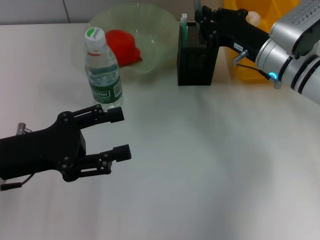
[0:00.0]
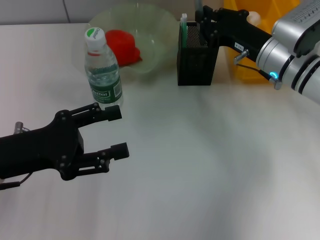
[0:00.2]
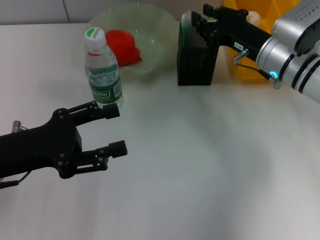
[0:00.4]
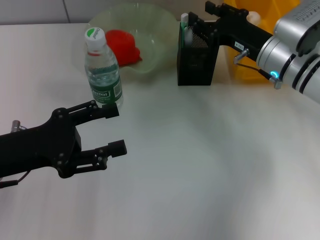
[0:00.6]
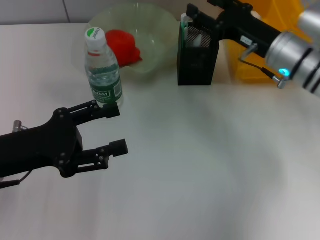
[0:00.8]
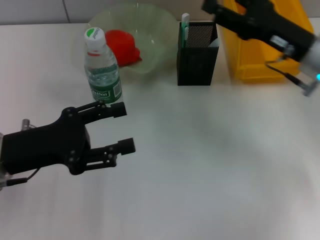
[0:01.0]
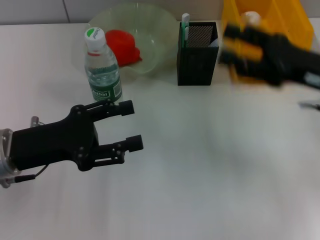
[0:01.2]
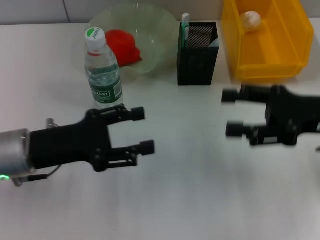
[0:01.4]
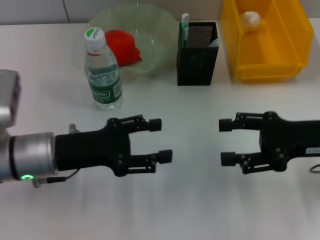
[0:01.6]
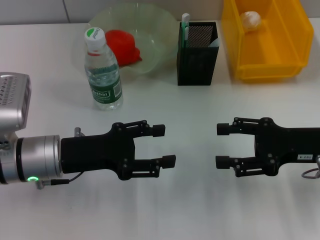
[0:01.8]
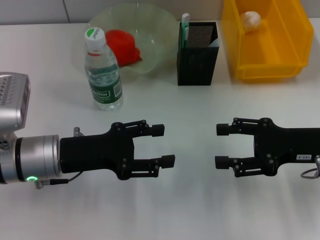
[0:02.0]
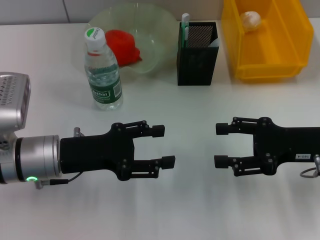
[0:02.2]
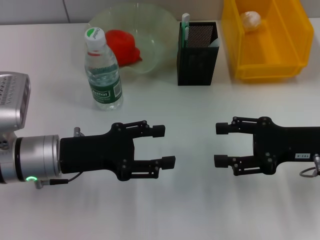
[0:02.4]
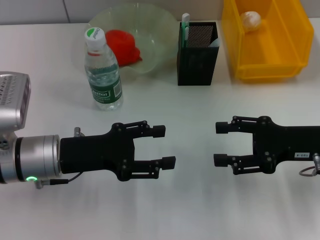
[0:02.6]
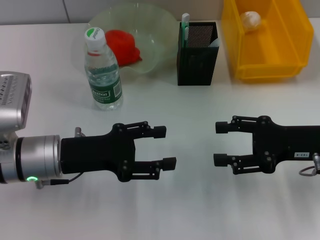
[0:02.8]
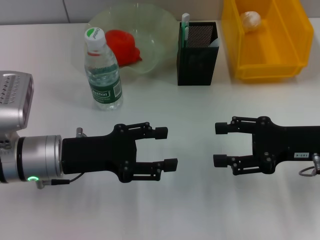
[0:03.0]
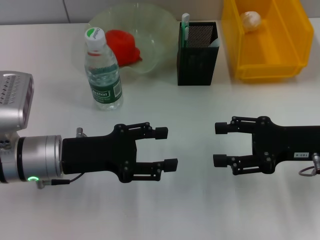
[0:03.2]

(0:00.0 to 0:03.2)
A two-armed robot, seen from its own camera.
0:00.0 - 0:01.6: The right gripper moves backward and to the right, approximately 15 cm, and opens its fingers; the left gripper ends up about 5 cm from where it was.
0:01.6 - 0:03.2: The grippers move only a little.

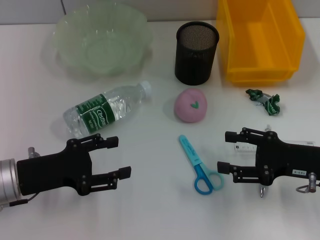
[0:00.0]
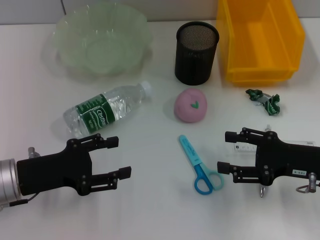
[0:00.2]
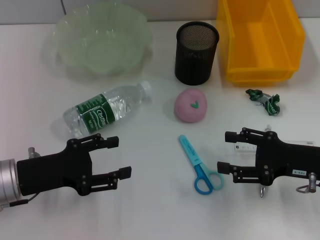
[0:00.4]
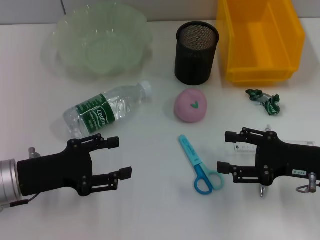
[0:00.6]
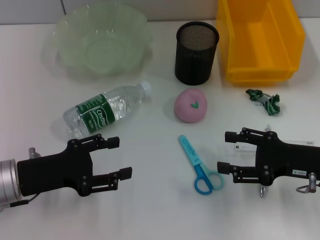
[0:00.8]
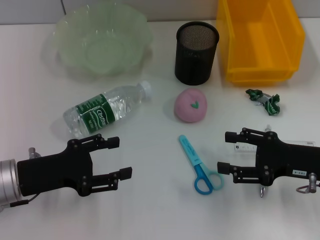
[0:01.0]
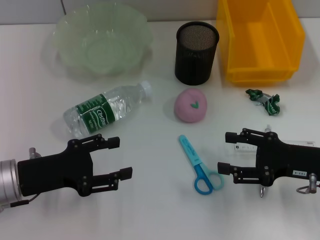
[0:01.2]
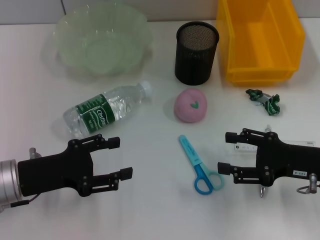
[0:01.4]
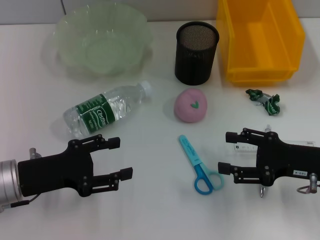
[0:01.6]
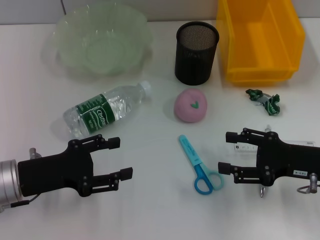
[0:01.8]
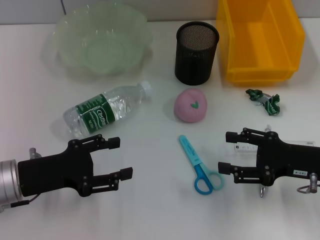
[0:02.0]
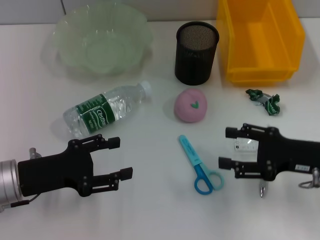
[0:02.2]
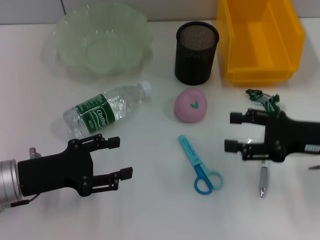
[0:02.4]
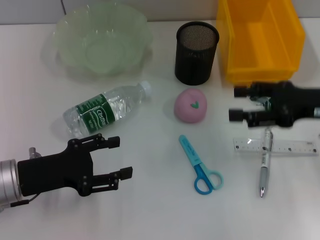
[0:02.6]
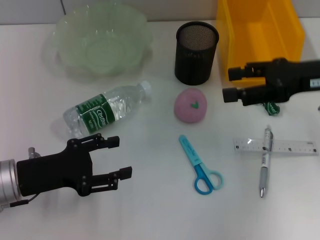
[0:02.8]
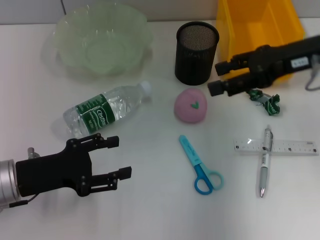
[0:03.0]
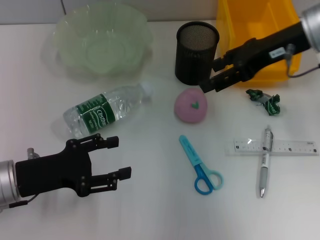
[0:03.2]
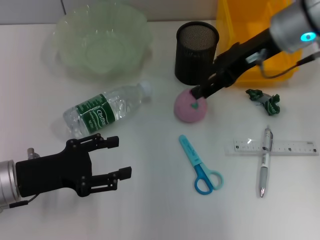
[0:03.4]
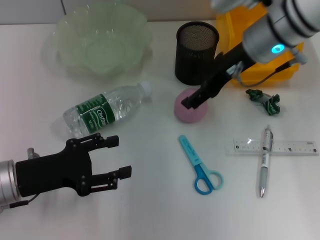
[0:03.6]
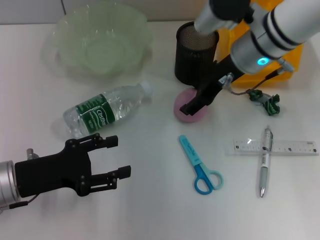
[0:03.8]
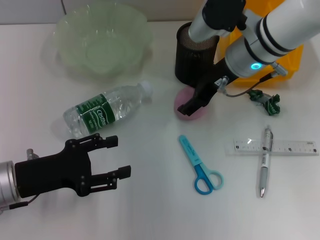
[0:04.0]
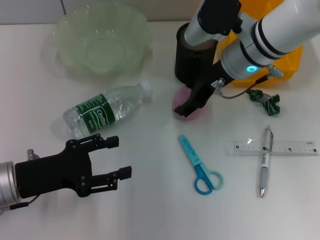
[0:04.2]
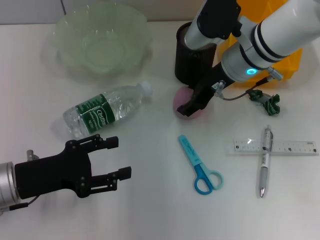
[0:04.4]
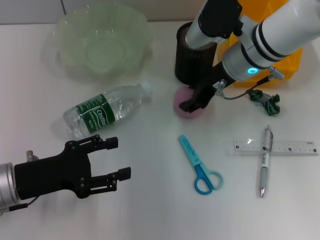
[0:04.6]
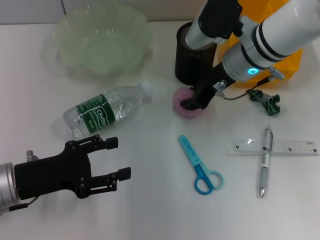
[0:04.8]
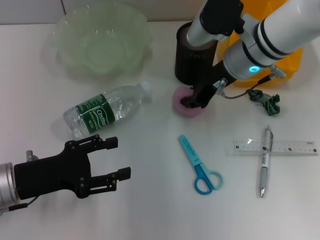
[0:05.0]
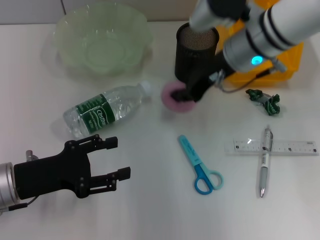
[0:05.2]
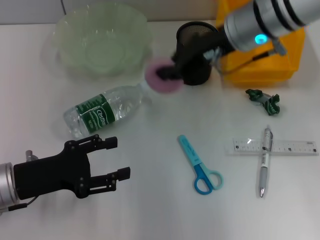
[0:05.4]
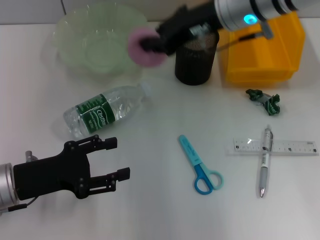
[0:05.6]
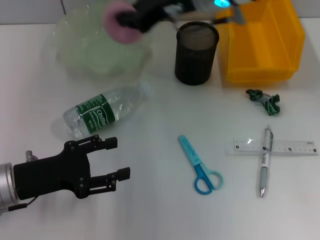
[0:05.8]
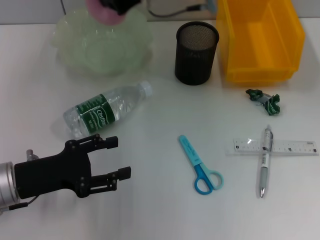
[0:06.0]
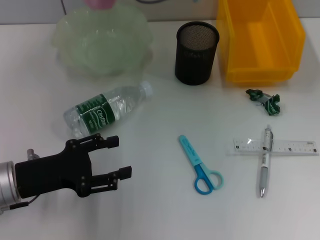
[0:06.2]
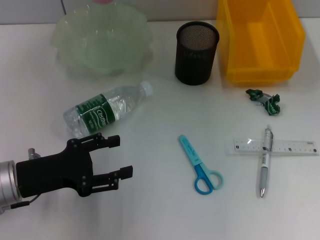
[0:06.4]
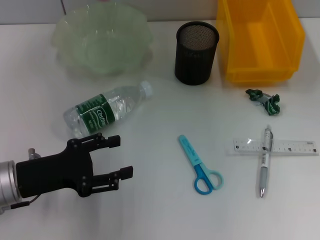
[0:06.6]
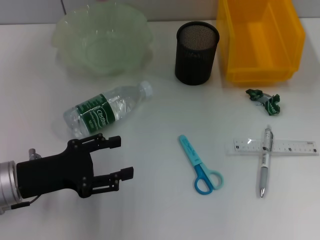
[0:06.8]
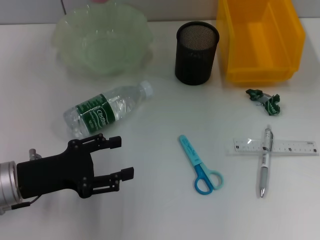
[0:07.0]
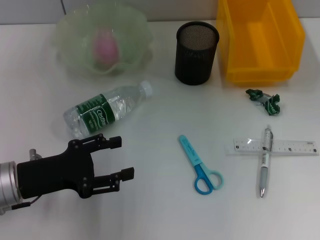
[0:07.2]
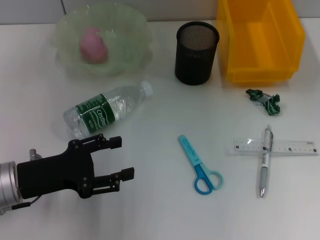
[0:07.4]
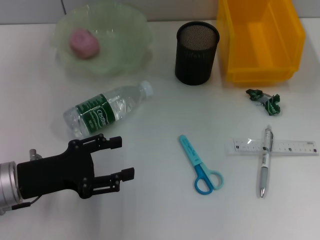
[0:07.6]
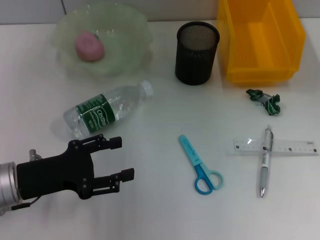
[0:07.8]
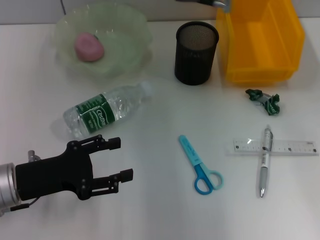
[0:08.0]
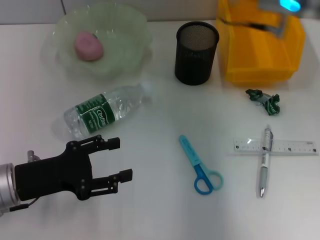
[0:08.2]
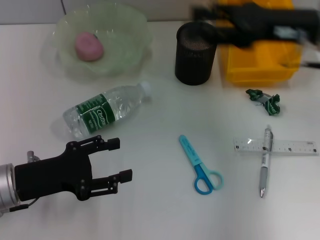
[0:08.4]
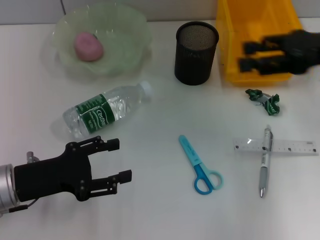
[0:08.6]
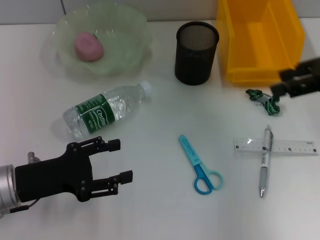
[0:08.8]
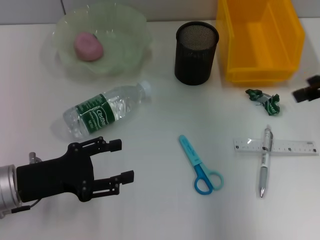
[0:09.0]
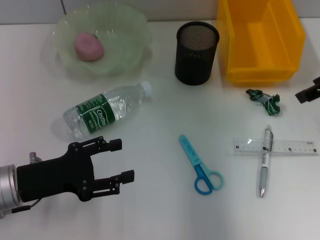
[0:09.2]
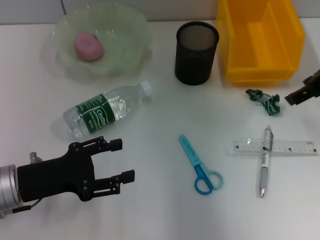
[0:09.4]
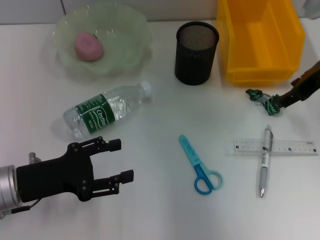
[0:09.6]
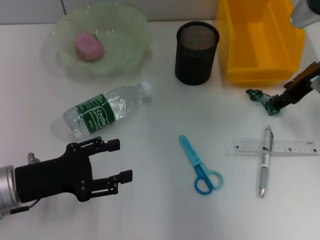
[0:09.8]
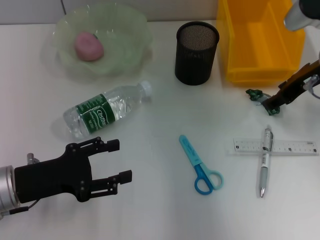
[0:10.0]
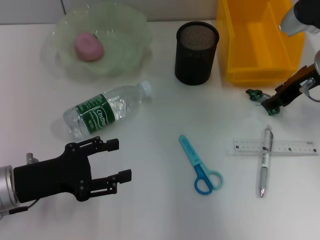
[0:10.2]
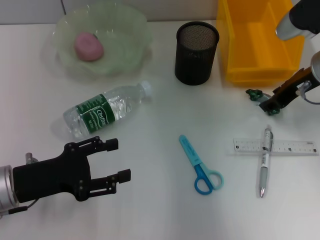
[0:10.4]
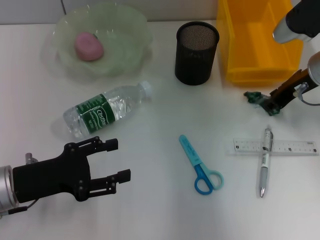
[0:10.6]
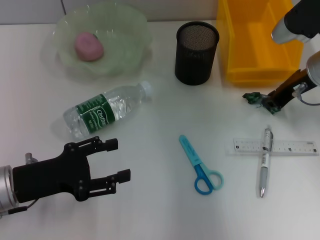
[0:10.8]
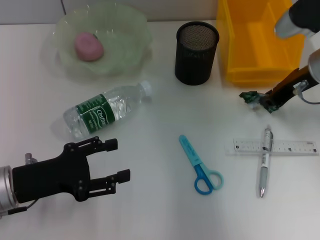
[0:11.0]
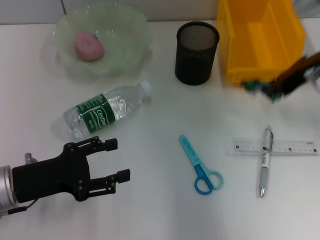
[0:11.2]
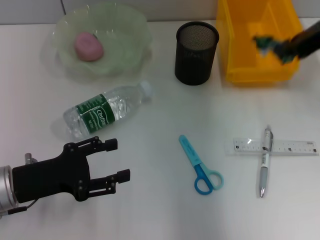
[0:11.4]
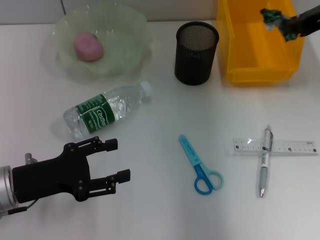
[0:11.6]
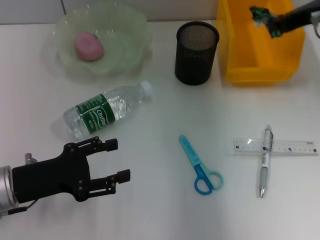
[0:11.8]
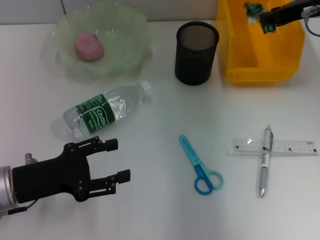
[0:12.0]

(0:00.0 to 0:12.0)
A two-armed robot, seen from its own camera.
Step, 0:00.0 - 0:04.8: Grab the peach with the right hand.
Step, 0:05.0 - 0:07.4: Place the peach into the fruit bowl with the right hand.
Step, 0:07.6 - 0:10.6: Grab the plastic with the right hand.
0:00.0 - 0:01.6: The two grippers keep their place.
0:01.6 - 0:03.0: The right gripper shifts approximately 20 cm upward and forward.
0:03.0 - 0:04.4: The right gripper is displaced to the left and downward by some 15 cm.
0:04.4 - 0:06.0: The right gripper moves upward and to the left, about 10 cm, and closes its fingers.
0:06.0 - 0:07.6: The right gripper opens.
0:07.6 - 0:09.0: The right gripper heads to the right and backward, covering roughly 30 cm.
0:09.0 - 0:10.4: The right gripper is displaced downward and to the left by about 10 cm.
0:10.4 - 0:12.0: The right gripper shifts about 5 cm upward, and closes its fingers.

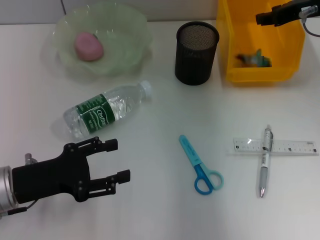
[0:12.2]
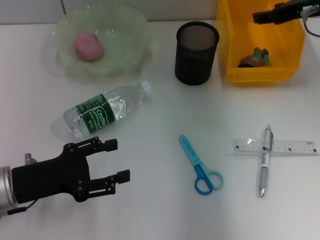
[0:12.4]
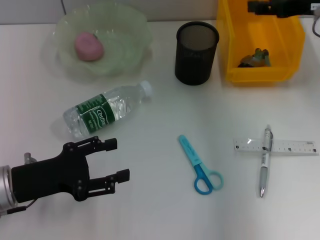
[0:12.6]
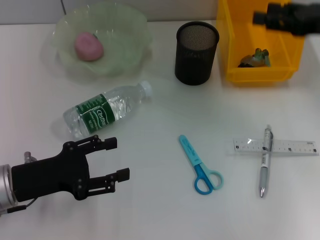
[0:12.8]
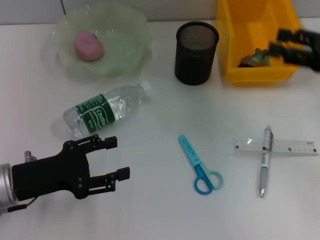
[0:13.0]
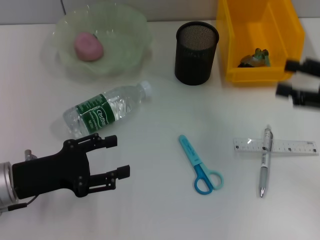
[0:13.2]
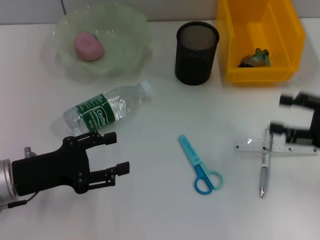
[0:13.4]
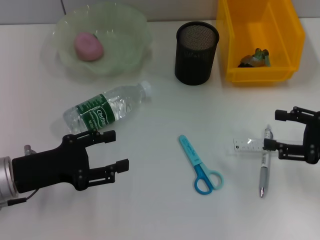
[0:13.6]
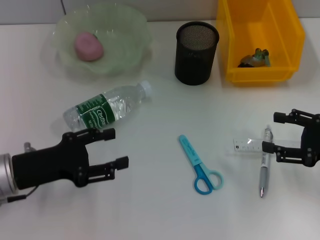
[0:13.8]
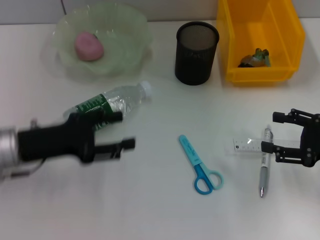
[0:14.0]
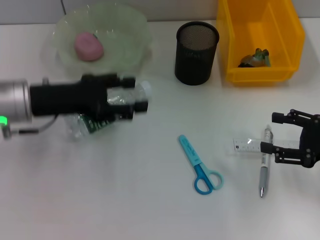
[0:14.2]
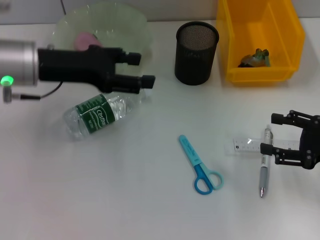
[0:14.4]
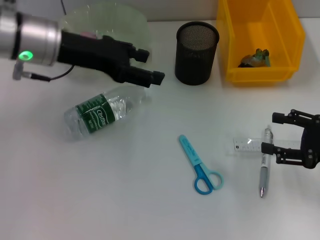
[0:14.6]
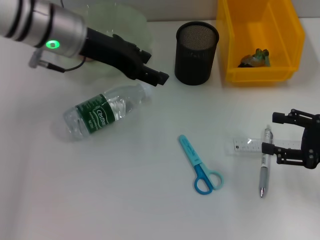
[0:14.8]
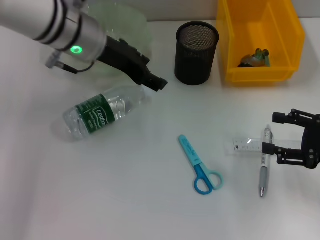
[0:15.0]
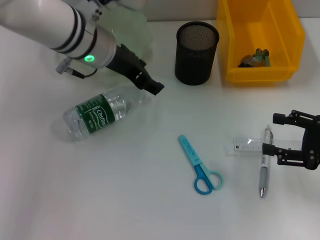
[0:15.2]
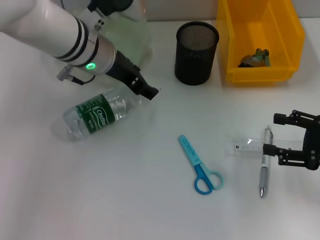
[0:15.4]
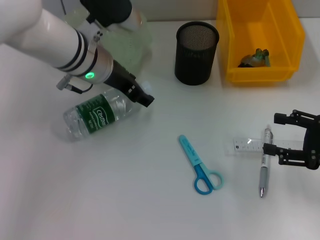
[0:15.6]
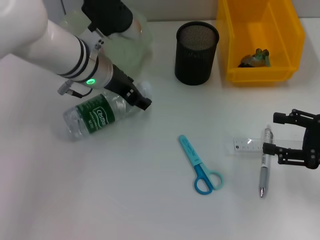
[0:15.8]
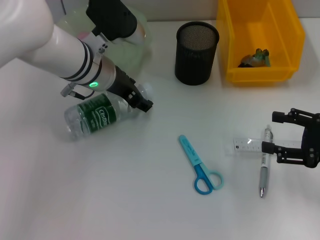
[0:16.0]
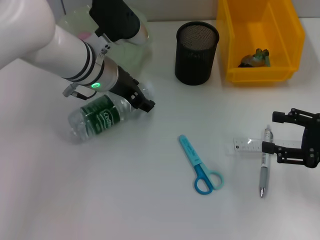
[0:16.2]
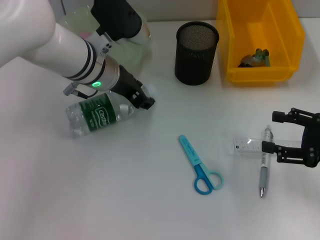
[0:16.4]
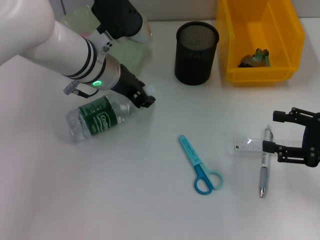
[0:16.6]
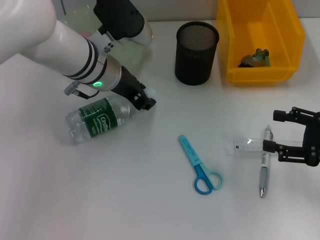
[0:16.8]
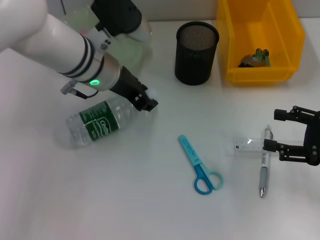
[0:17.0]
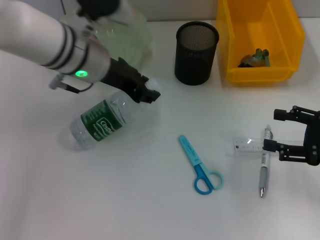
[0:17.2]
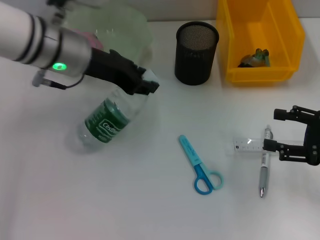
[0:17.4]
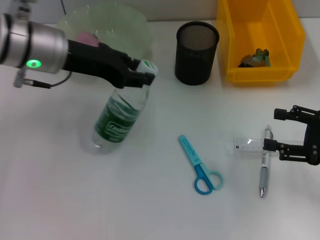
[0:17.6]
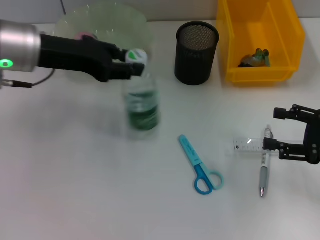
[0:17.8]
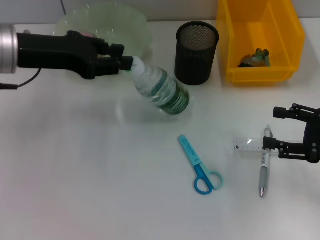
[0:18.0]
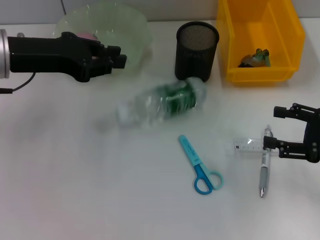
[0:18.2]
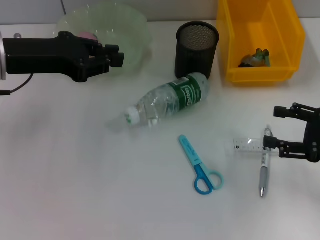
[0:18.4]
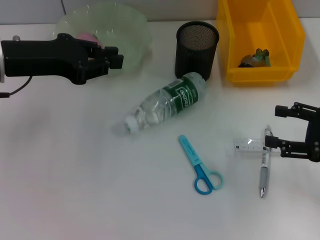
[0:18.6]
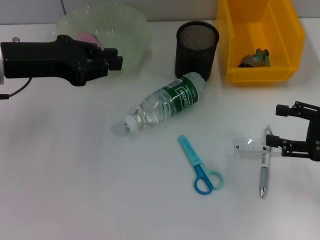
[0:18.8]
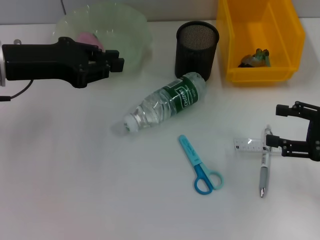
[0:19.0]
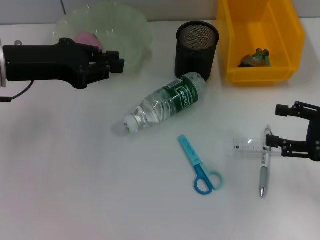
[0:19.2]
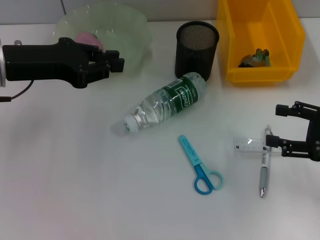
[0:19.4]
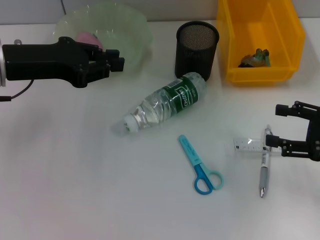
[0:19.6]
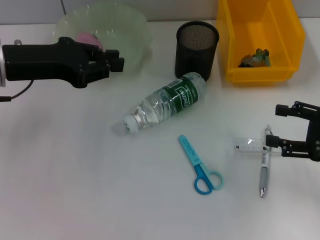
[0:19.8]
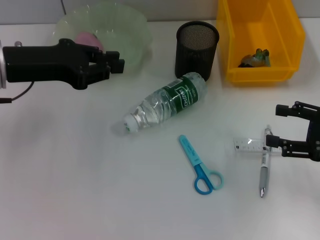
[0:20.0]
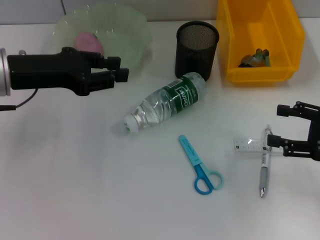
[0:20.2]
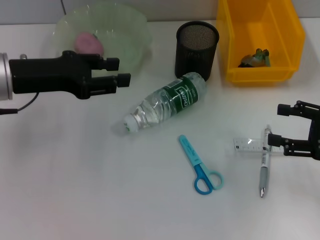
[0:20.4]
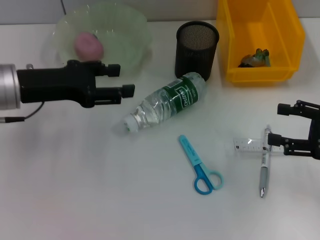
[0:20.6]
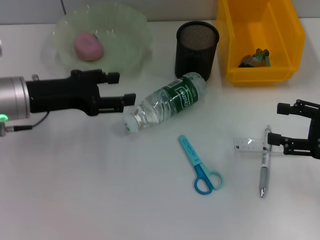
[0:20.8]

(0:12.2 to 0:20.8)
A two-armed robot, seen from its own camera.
0:12.2 - 0:13.6: The right gripper shifts approximately 25 cm backward, downward and to the right, and opens.
0:13.6 - 0:15.0: The left gripper is displaced forward, to the right and upward by roughly 25 cm.
0:15.0 - 0:16.6: The left gripper heads downward, covering roughly 5 cm, and closes up.
0:16.6 - 0:18.0: The left gripper travels to the left, upward and backward by about 15 cm.
0:18.0 - 0:19.4: The grippers make only small movements.
0:19.4 - 0:20.8: The left gripper goes about 5 cm downward, and opens up.
